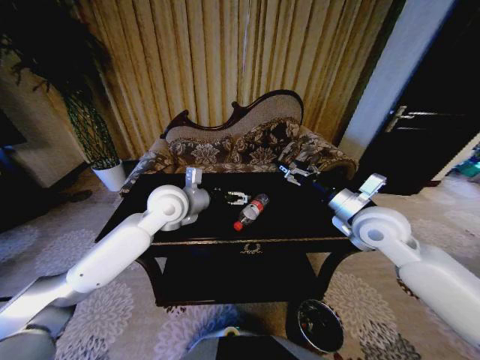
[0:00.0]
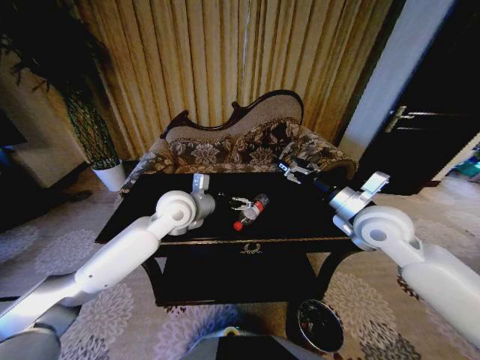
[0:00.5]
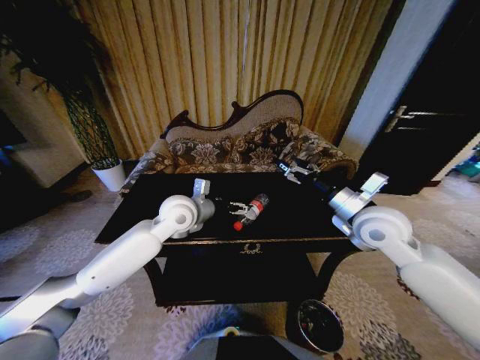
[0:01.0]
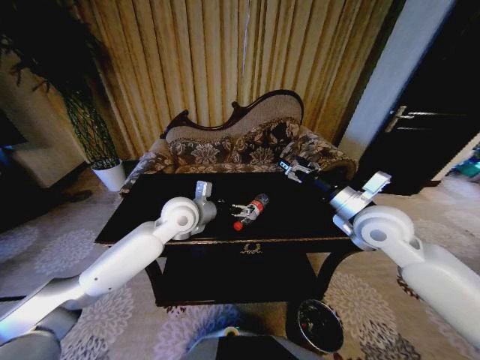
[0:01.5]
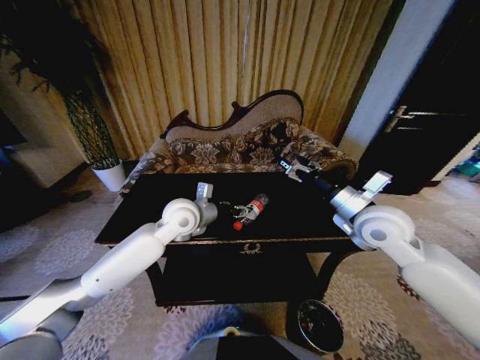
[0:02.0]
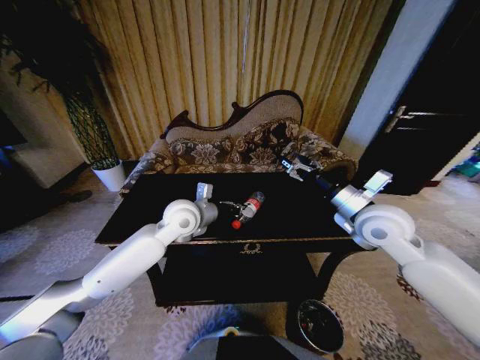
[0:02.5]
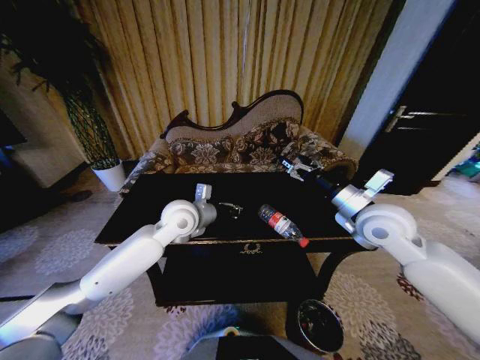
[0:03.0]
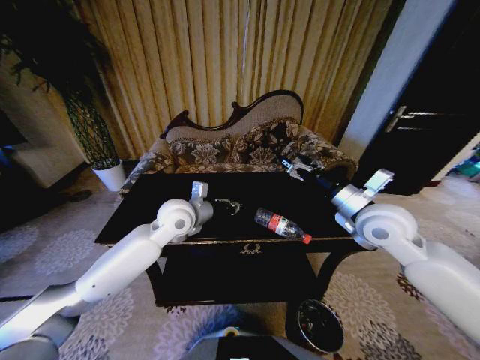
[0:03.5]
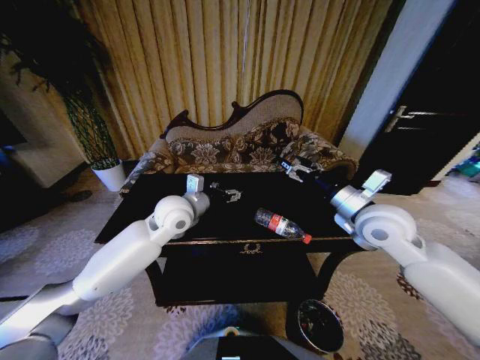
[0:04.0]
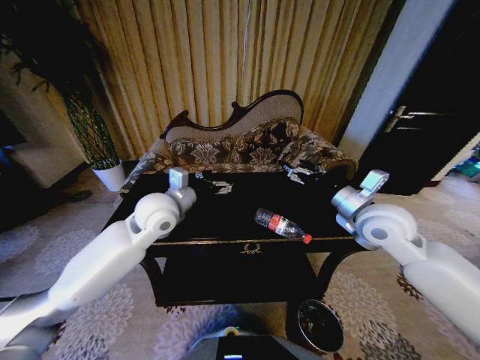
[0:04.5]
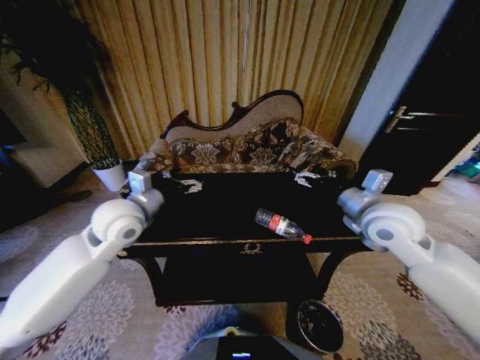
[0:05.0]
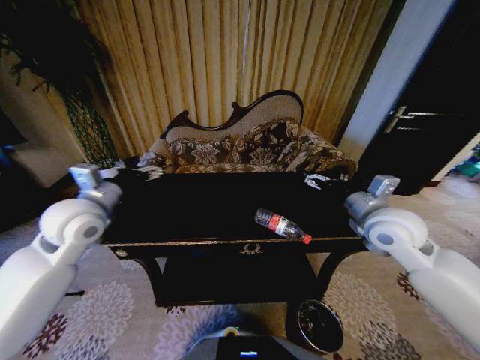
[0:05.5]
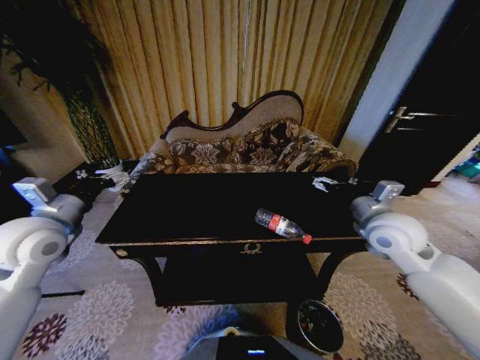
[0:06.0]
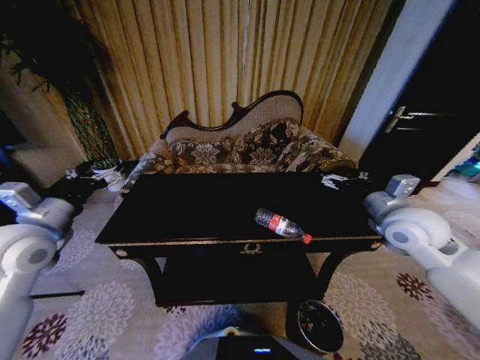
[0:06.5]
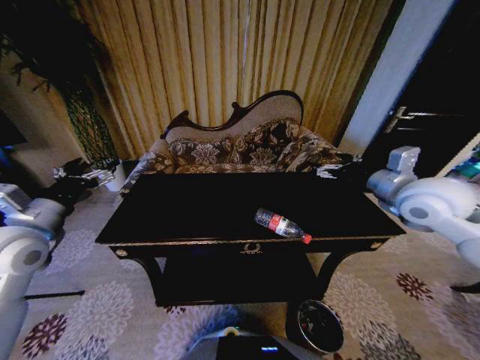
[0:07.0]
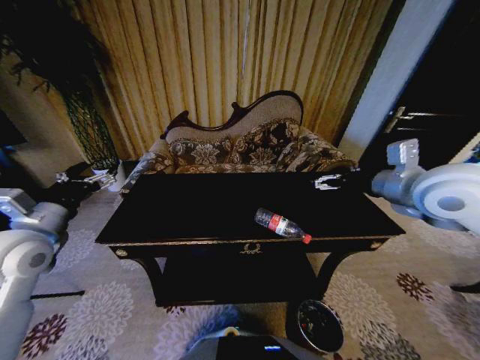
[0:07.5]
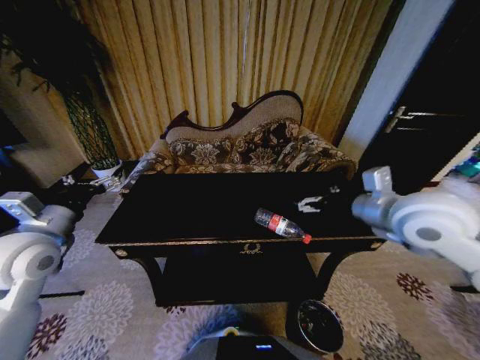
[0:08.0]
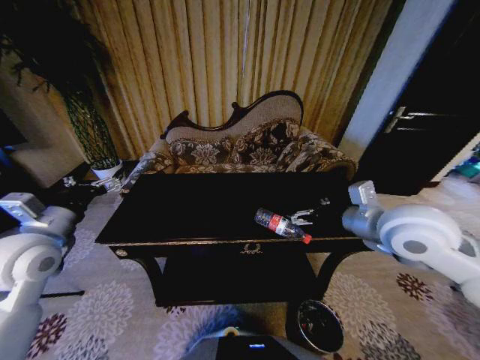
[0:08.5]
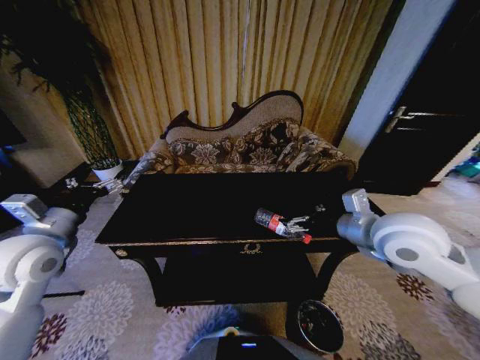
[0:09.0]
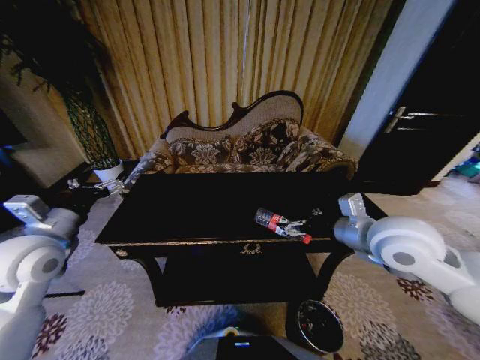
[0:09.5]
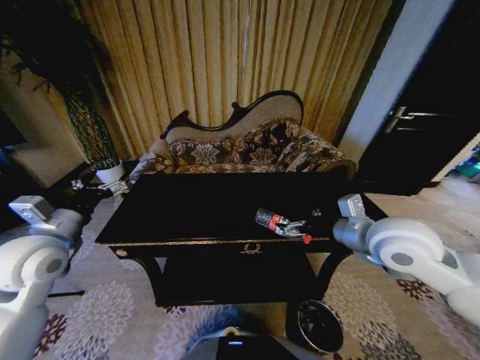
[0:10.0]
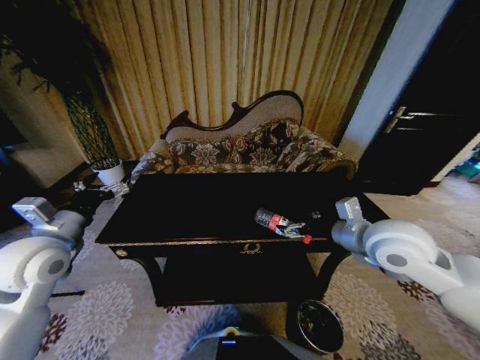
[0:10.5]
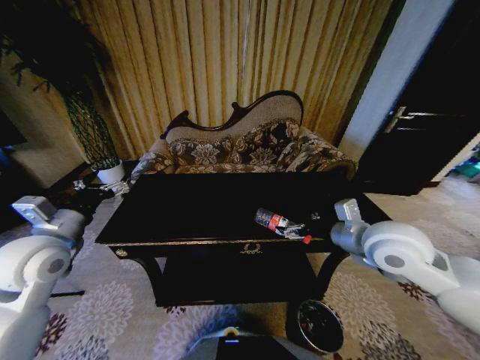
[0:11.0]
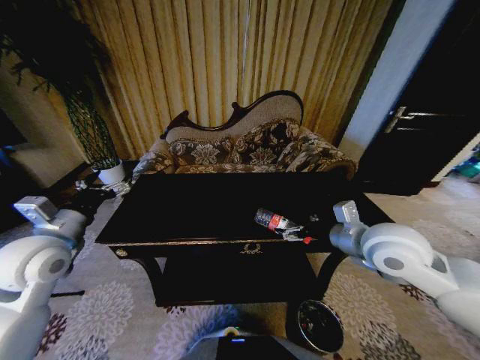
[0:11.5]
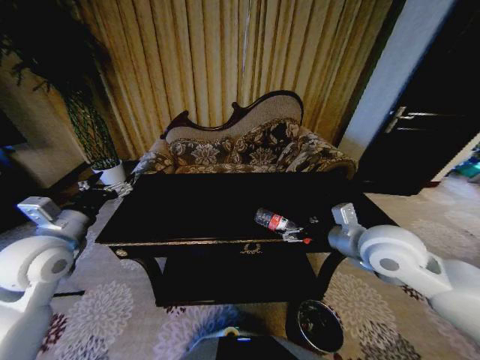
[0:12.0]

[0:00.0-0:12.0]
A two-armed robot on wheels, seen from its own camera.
Task of the whole recording: Move to the front of the table and place the trash on the table into the trash bin.
0.0 to 2.0 s: The left gripper shifts by approximately 5 cm, and closes up.
2.0 to 4.0 s: The left gripper closes, then reopens.
4.0 to 6.0 s: The left gripper moves to the left and backward, about 25 cm.
6.0 to 8.0 s: The right gripper goes roughly 10 cm upward.
8.0 to 10.0 s: The right gripper moves about 5 cm.
10.0 to 12.0 s: The grippers make only small movements.

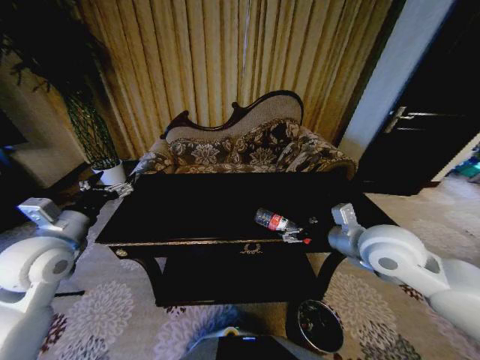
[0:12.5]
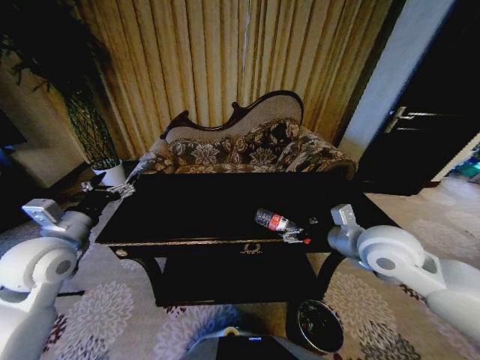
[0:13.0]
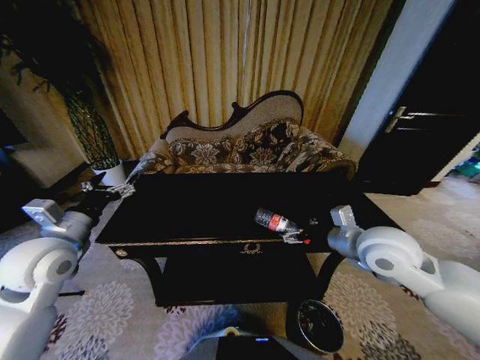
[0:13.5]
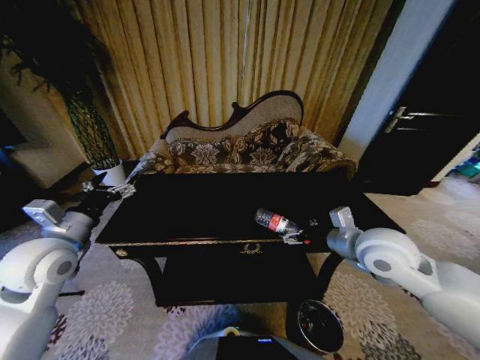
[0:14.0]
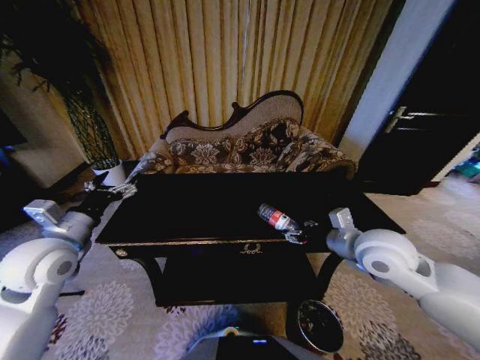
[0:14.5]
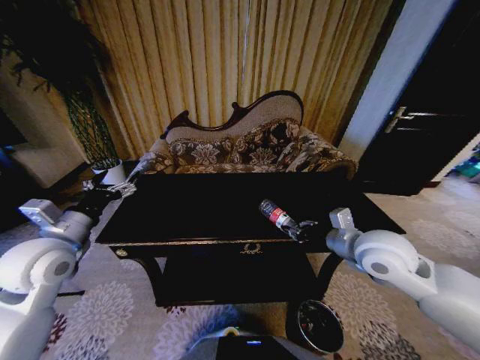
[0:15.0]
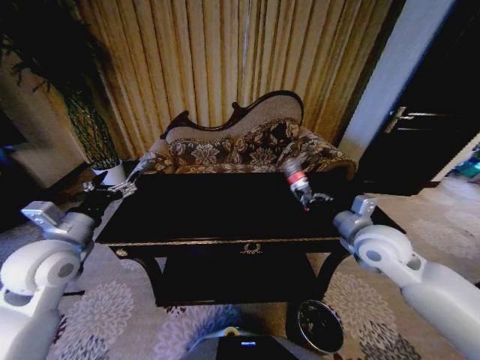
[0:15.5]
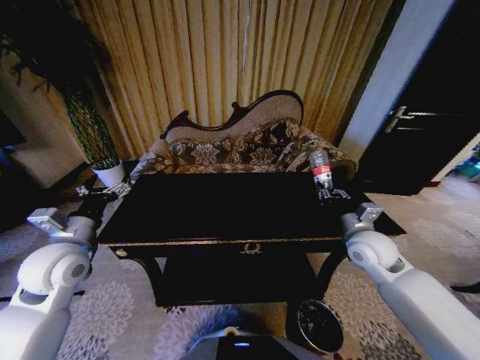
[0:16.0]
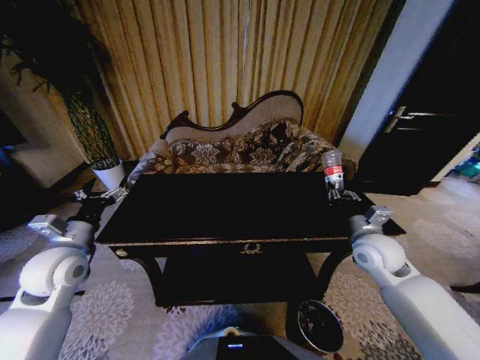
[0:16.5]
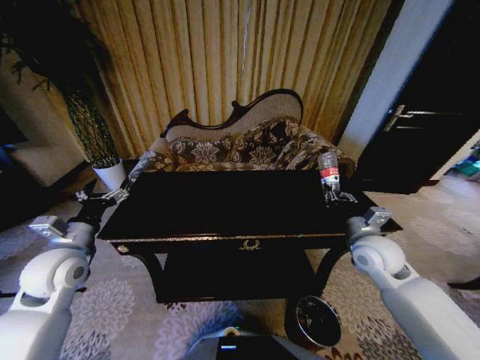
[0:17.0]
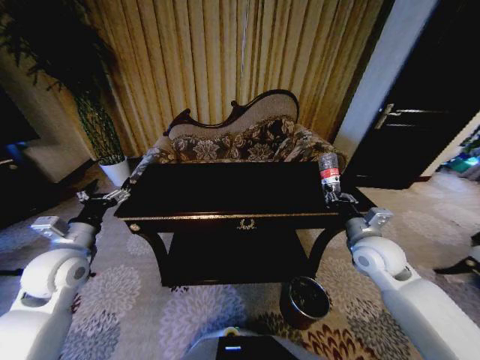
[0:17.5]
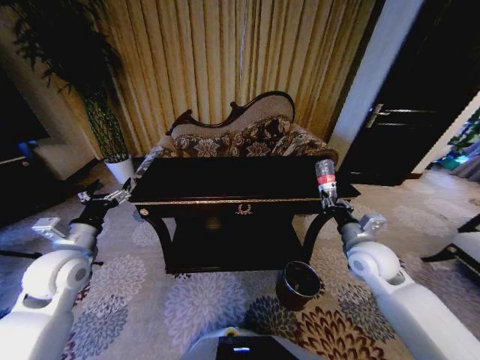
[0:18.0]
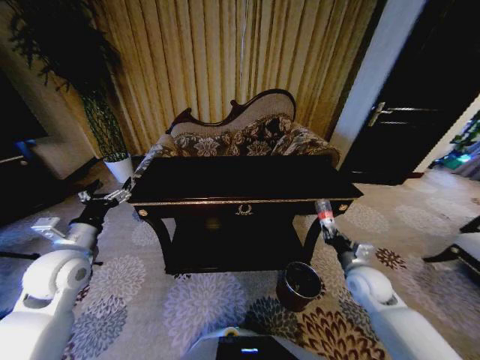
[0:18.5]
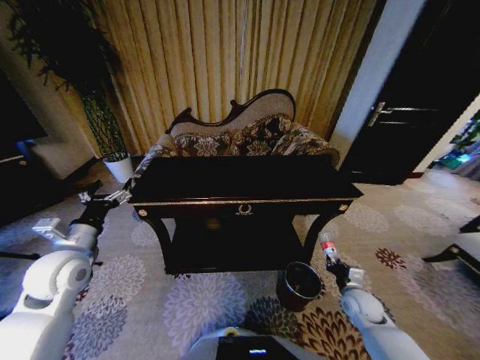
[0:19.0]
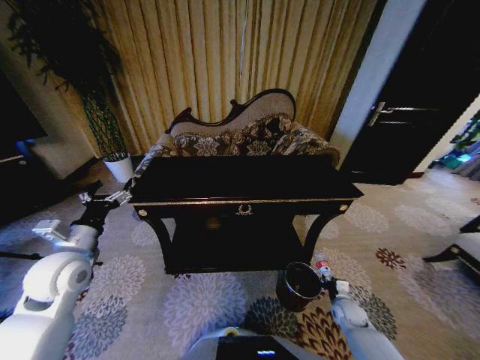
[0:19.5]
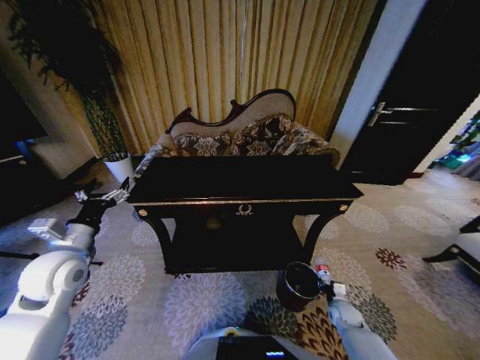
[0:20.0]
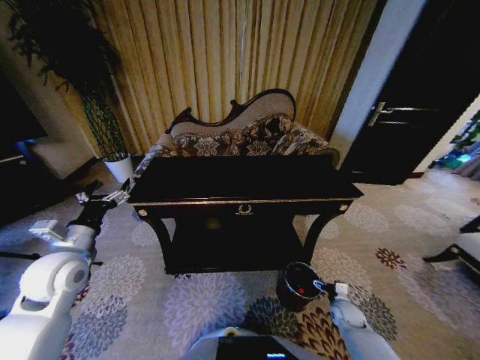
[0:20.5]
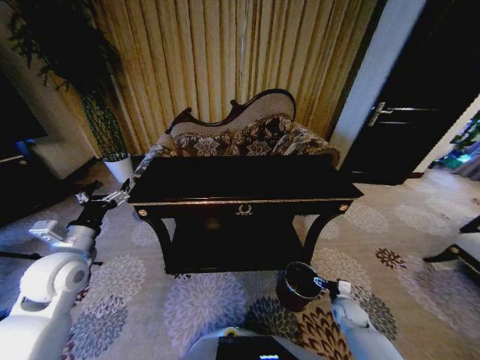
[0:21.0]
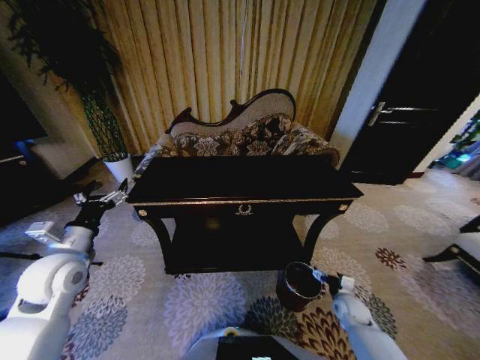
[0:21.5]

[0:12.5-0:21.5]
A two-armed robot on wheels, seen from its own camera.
Task of the whole recording: Move to the front of the table and place the trash on the table into the trash bin.
12.5 to 14.5 s: There are only small adjustments of the grippers.
14.5 to 17.0 s: The left gripper changes place by about 5 cm, while the right gripper is displaced downward and to the right by some 10 cm, and closes.
17.0 to 19.5 s: The right gripper shifts approximately 30 cm downward.
19.5 to 21.5 s: The right gripper opens.

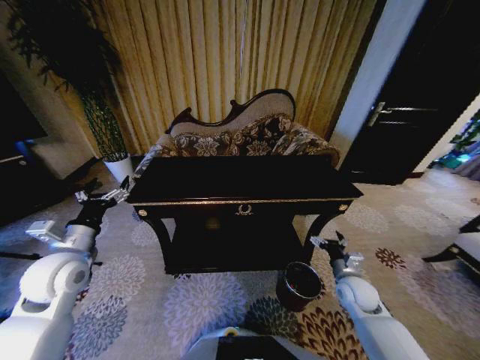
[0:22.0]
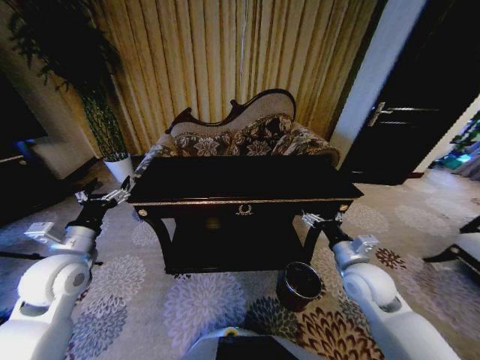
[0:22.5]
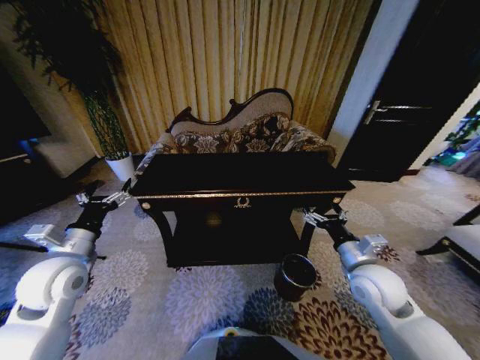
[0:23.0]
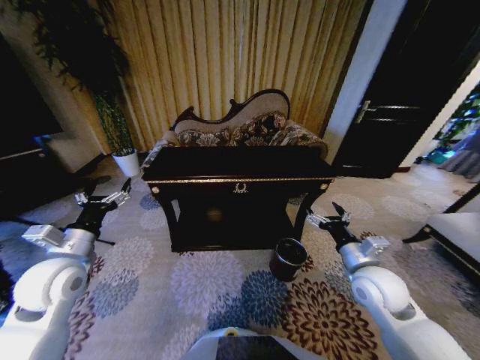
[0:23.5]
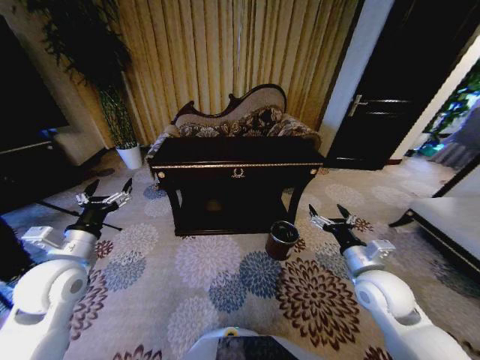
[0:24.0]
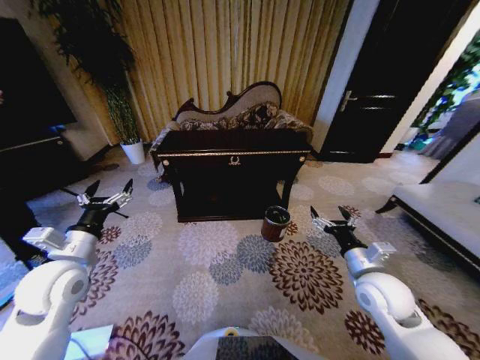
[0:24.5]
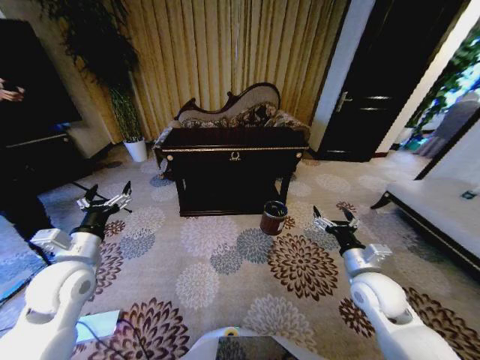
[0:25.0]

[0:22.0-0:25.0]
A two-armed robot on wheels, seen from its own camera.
Task of the whole recording: Move to the front of the table and place the trash on the table into the trash bin.
22.0 to 23.5 s: The right gripper goes approximately 15 cm upward.

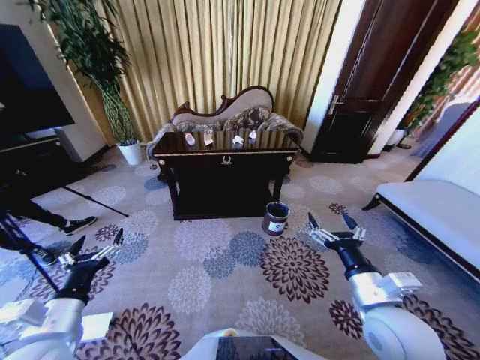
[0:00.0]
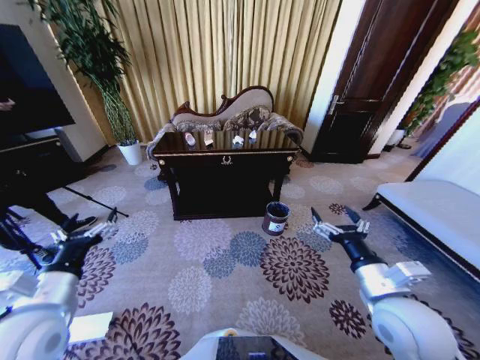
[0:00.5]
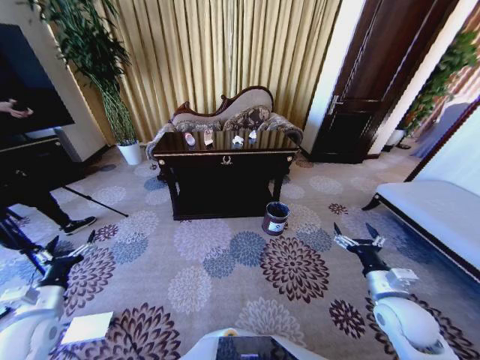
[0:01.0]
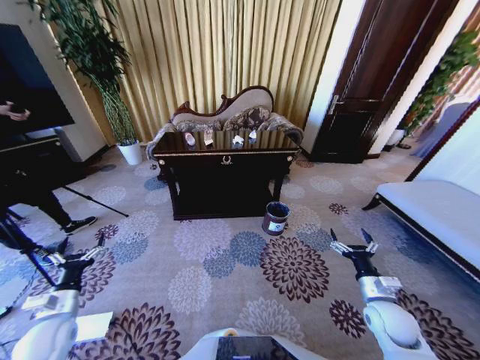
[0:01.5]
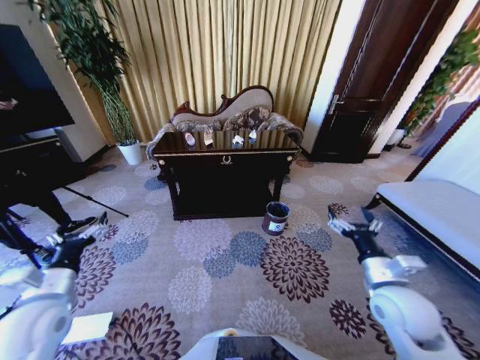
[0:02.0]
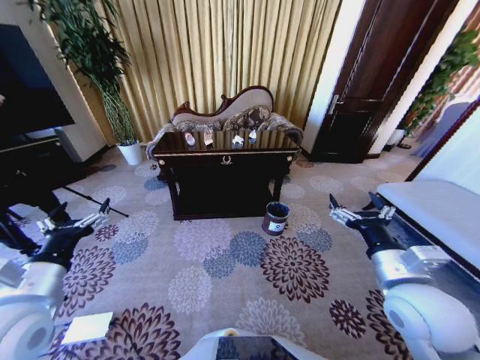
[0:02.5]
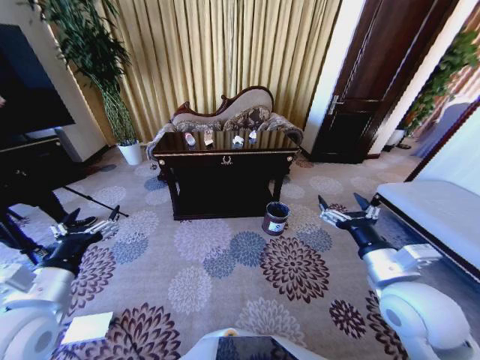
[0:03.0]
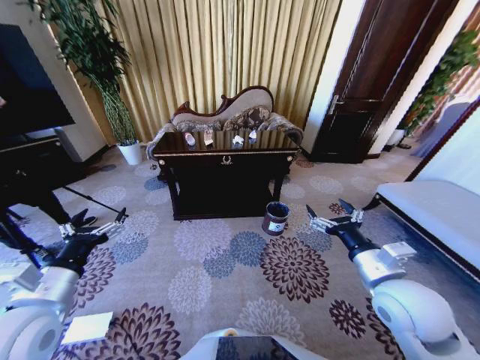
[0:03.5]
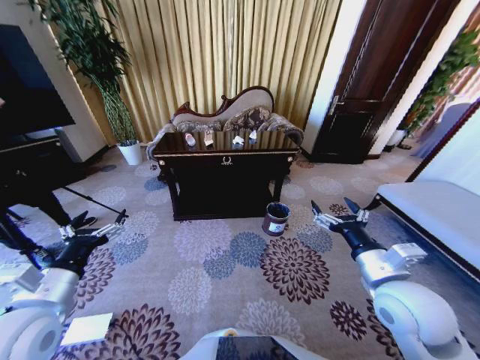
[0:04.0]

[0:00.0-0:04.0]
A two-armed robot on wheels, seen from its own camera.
Task of the whole recording: Move to the front of the table and place the trash on the table into the trash bin.
2.0 to 4.0 s: Both grippers travel together upward, approximately 5 cm.
